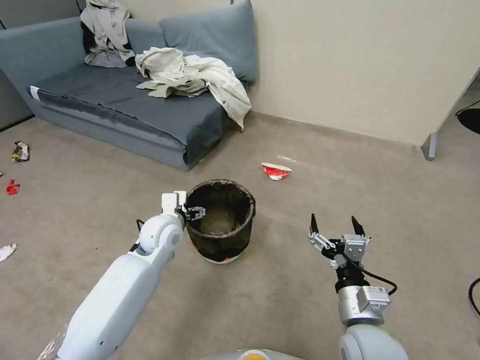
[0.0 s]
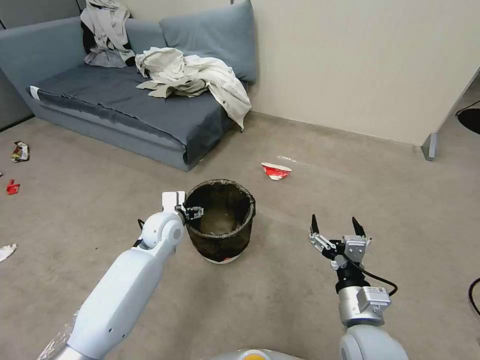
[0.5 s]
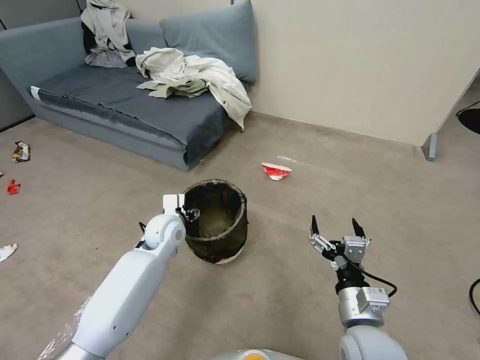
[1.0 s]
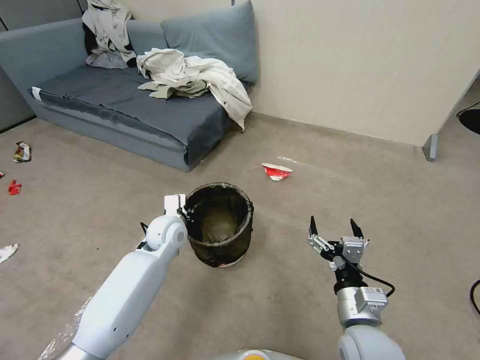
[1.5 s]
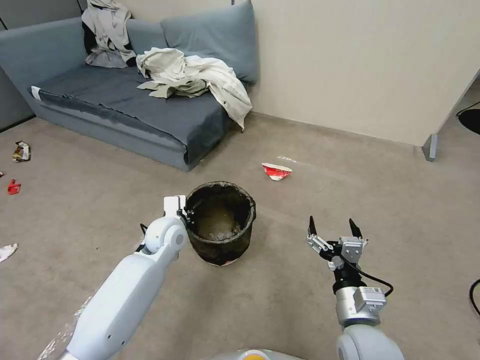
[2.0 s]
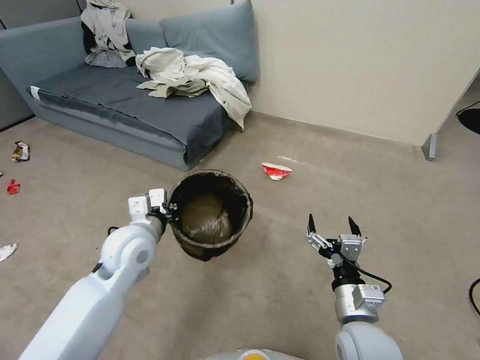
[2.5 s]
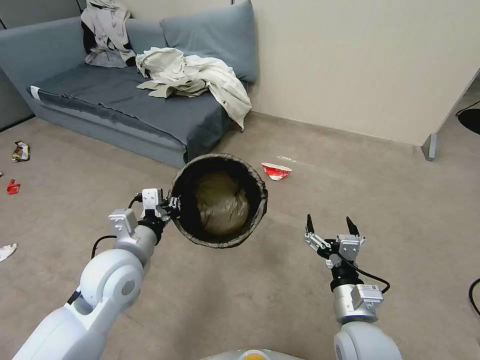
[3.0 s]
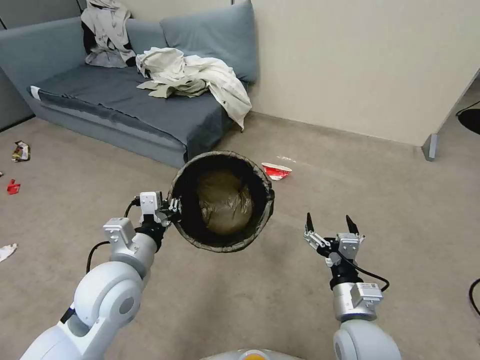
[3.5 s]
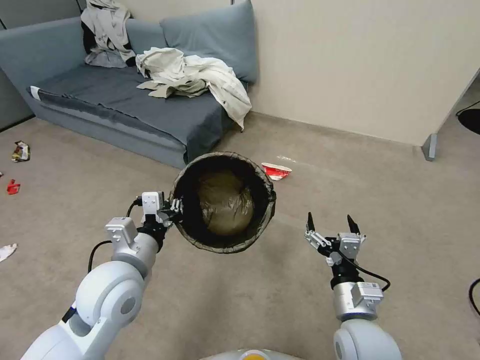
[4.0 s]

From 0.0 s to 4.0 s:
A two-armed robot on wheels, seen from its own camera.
Task of the whole recording: Pick up the trash can from the floor.
From 0.0 s to 2.0 s: The left gripper closes.
From 2.0 s to 4.0 s: The left gripper travels backward and upward by some 20 cm.
